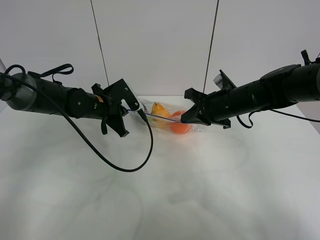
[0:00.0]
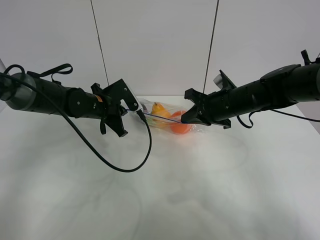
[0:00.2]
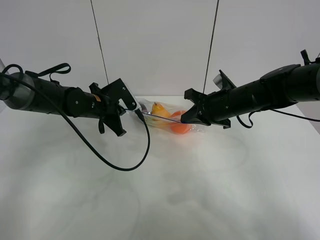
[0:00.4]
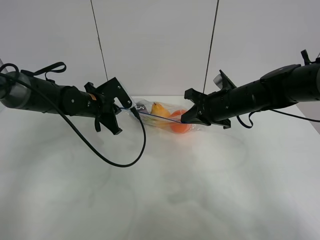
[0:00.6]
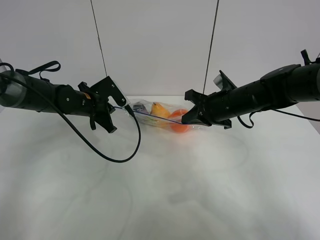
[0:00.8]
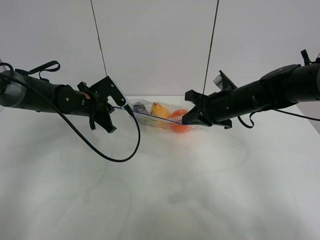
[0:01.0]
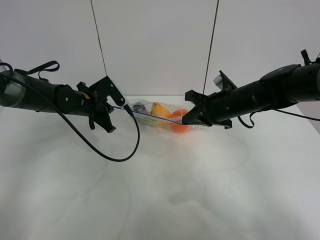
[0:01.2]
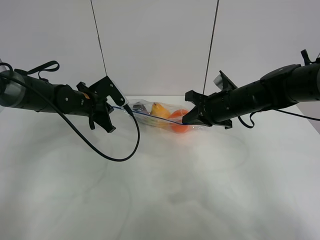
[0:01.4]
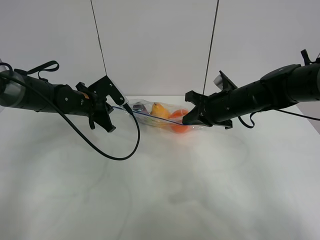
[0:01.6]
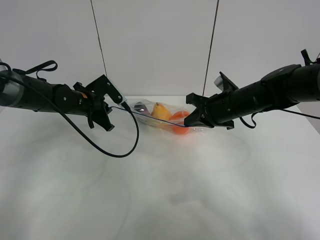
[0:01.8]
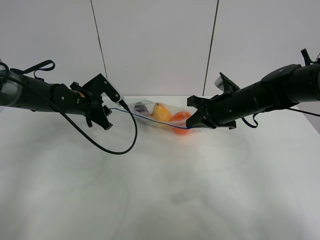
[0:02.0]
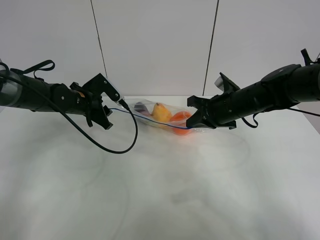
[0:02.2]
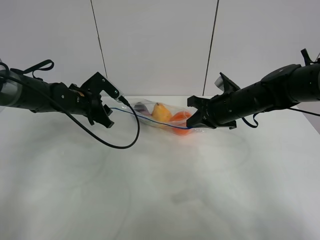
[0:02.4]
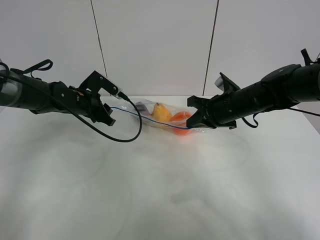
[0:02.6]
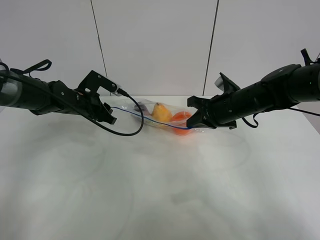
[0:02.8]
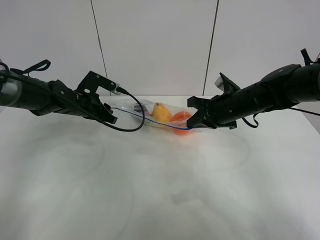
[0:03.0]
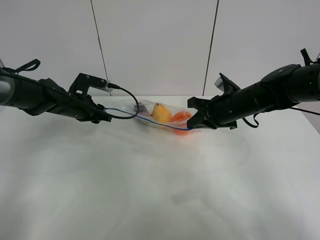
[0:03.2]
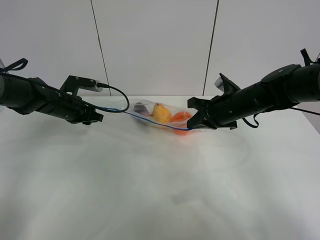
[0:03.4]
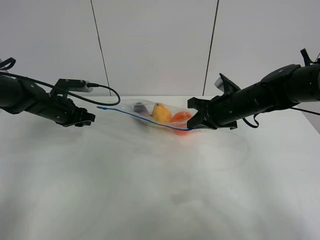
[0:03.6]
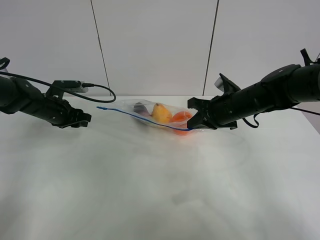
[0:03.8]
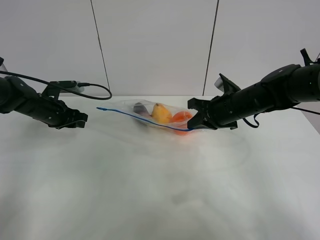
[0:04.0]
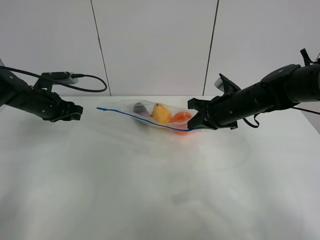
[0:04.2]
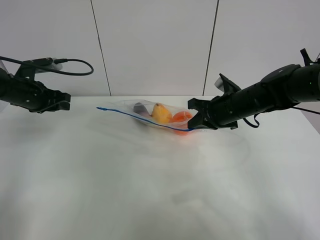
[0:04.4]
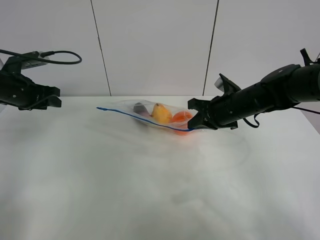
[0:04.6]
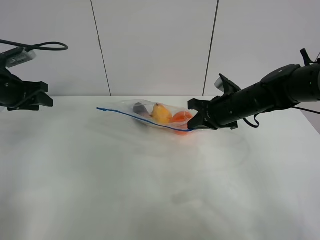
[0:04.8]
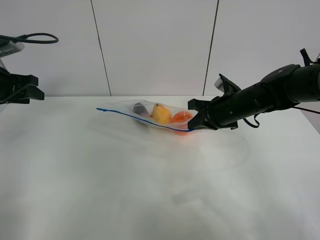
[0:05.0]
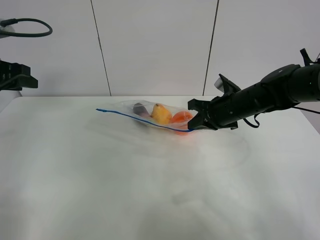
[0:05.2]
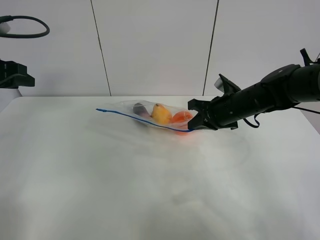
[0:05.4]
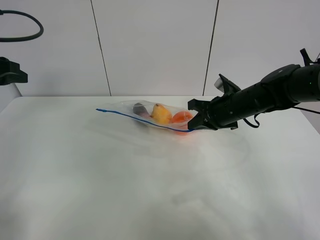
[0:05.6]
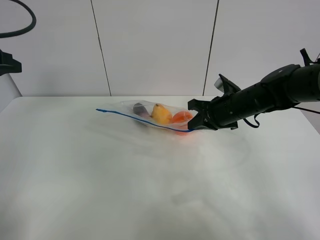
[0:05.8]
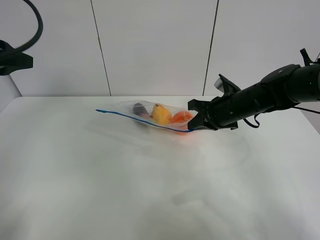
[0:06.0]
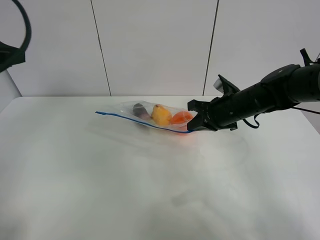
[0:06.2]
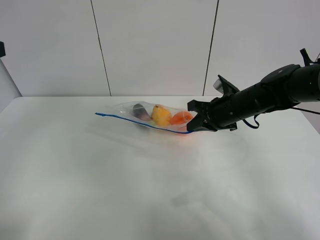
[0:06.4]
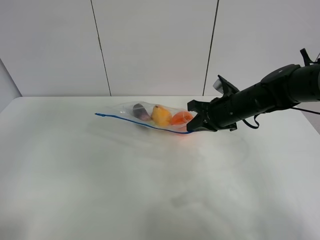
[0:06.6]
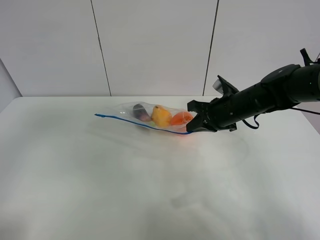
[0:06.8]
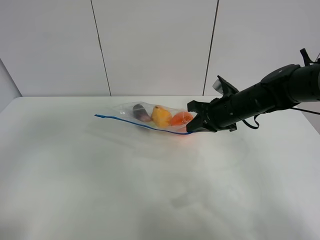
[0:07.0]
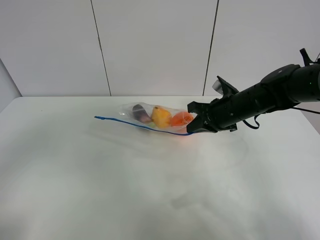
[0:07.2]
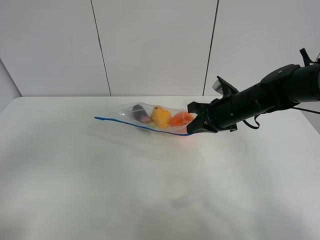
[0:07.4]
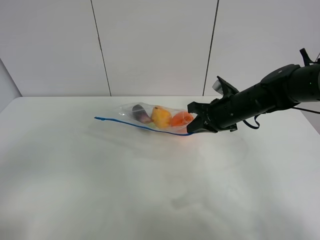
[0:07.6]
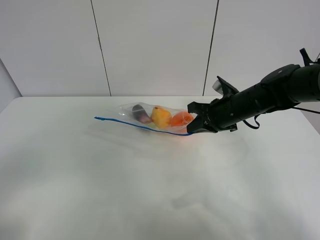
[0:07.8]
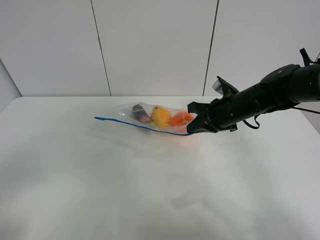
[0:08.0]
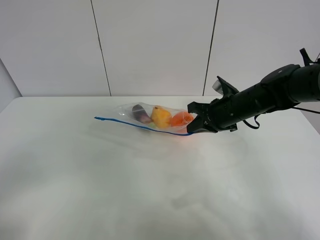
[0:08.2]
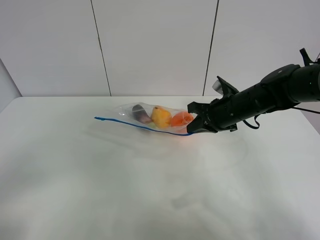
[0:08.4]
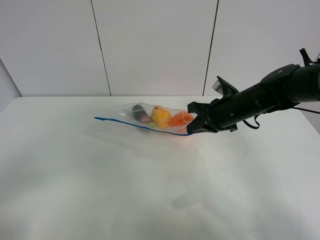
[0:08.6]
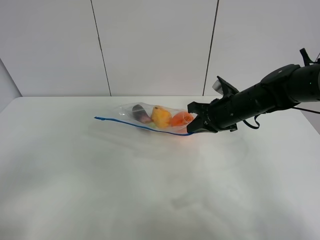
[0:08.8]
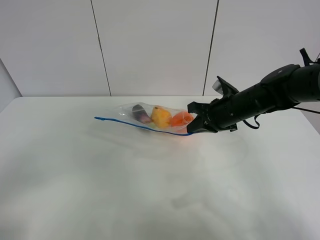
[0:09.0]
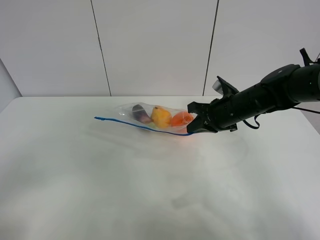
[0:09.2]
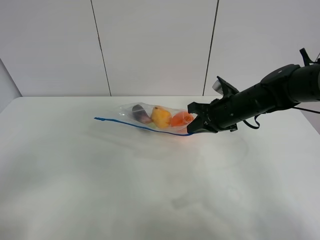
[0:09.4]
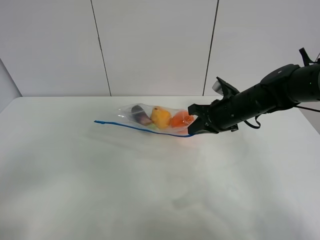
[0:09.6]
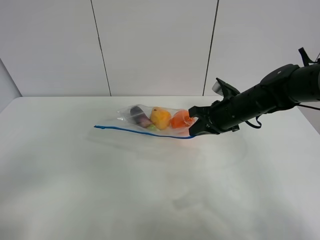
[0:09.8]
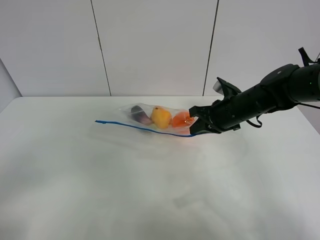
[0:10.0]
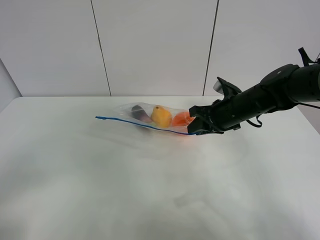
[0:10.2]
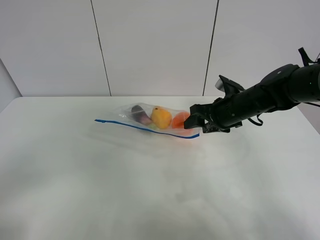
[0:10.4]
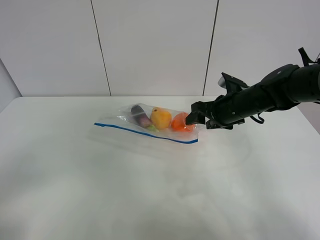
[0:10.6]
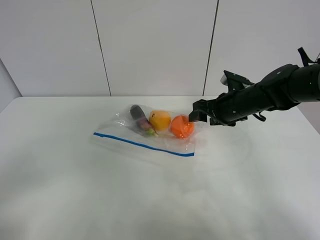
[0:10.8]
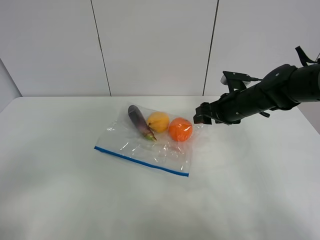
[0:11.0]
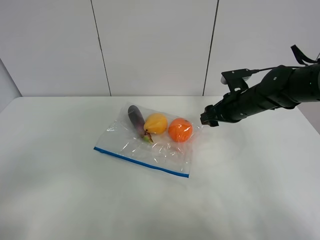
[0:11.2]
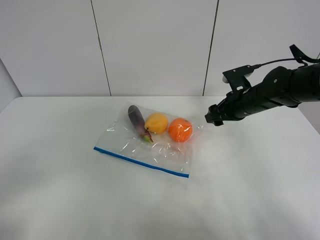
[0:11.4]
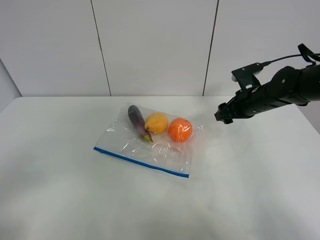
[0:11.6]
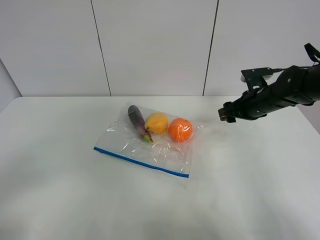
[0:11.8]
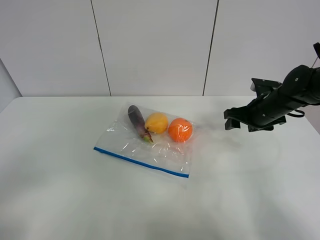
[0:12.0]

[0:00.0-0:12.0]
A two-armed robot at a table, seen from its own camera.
Step, 0:00.0 to 0:03.2: Pull the fruit bag with left gripper.
0:00.0 to 0:01.6: There are only small adjustments of the grippers.
0:01.6 to 0:03.0: The left gripper opens.
0:03.0 to 0:04.4: The left gripper heads to the left and upward, covering roughly 15 cm.
0:04.4 to 0:06.0: The left gripper heads upward and backward, covering about 20 cm.
0:06.0 to 0:07.6: The left gripper travels backward by roughly 25 cm.
0:09.0 to 0:10.4: The right gripper opens.
0:10.4 to 0:12.0: The right gripper goes about 10 cm to the right.

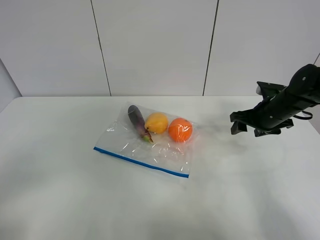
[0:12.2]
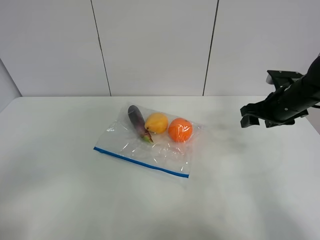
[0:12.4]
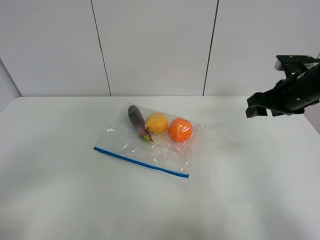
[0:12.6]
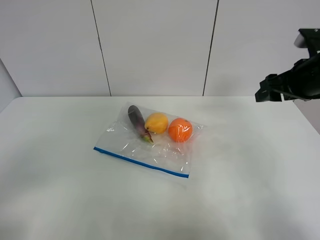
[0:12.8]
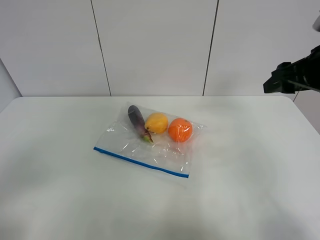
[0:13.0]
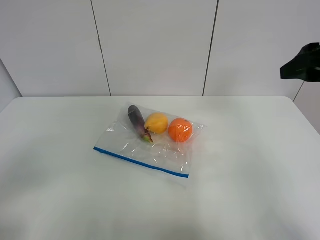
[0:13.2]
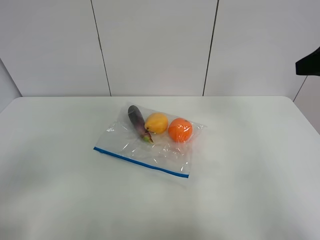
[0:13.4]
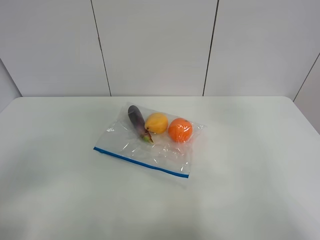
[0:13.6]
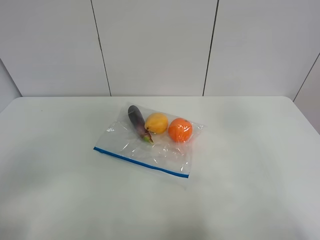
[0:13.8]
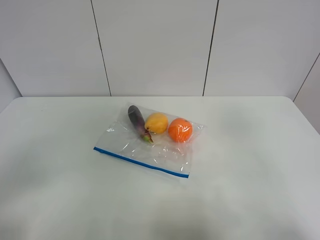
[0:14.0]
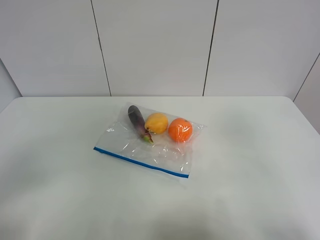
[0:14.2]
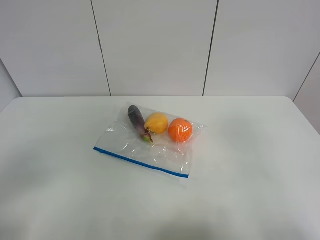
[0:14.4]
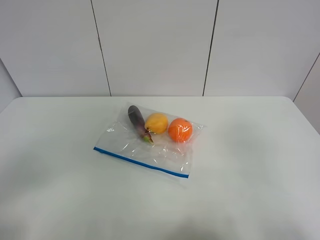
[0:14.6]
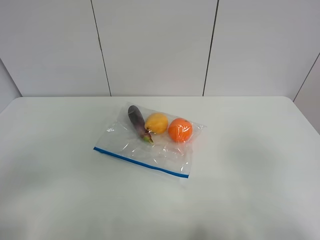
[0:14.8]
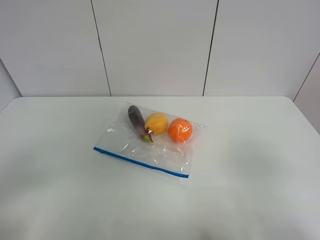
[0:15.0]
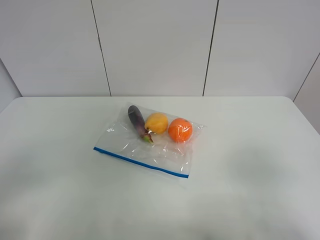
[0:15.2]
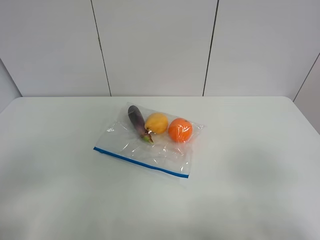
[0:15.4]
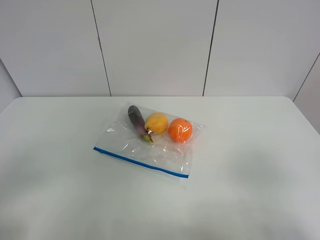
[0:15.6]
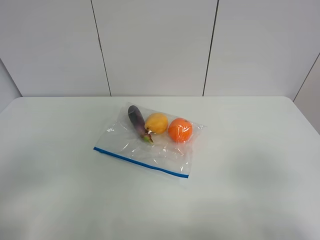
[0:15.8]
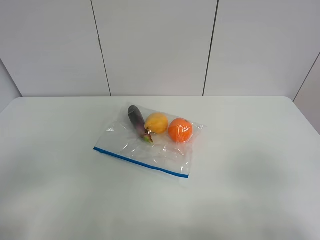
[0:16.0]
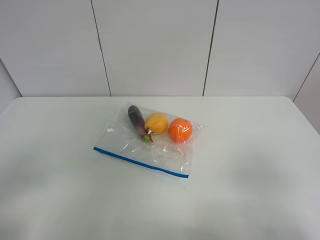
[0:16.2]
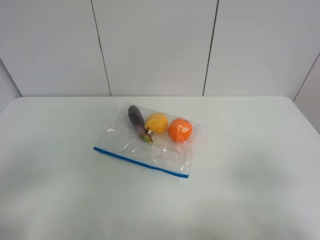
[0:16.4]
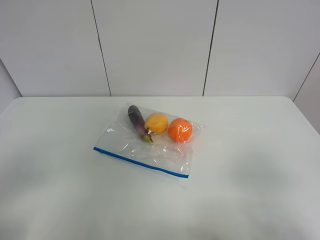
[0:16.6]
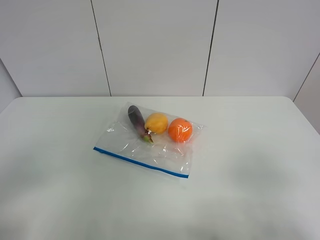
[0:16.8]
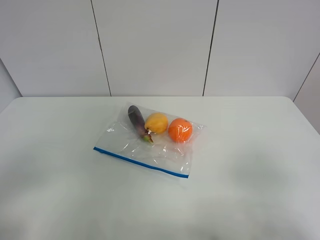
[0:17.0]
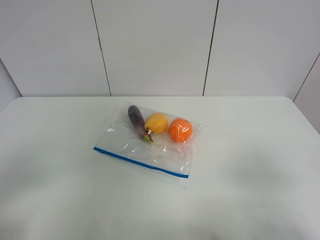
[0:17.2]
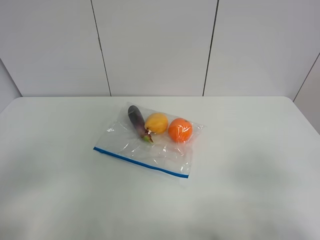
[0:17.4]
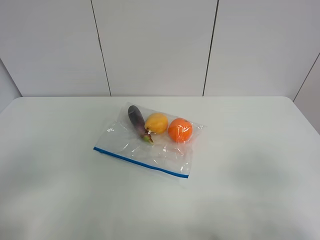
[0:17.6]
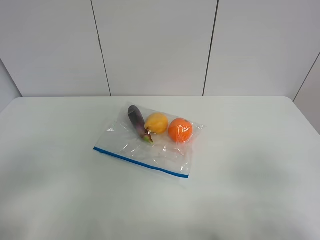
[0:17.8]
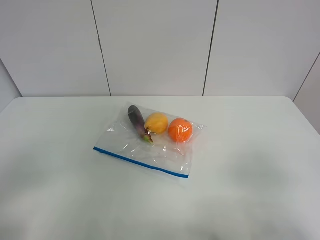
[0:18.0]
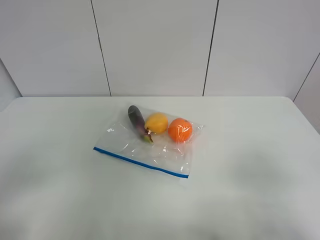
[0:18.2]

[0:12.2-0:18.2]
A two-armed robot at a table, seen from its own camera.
0:12.2 to 0:13.8: The right gripper goes some 30 cm backward and upward.
0:13.8 to 0:15.2: The right gripper goes about 15 cm backward and downward.
0:16.6 to 0:18.2: Both grippers stay about where they are.
